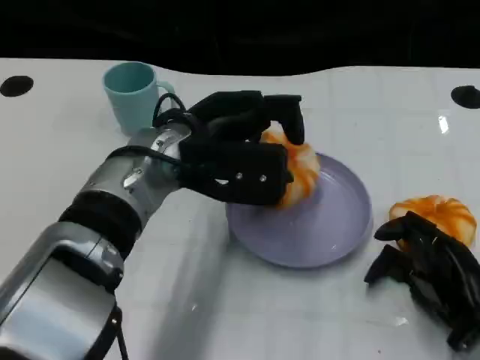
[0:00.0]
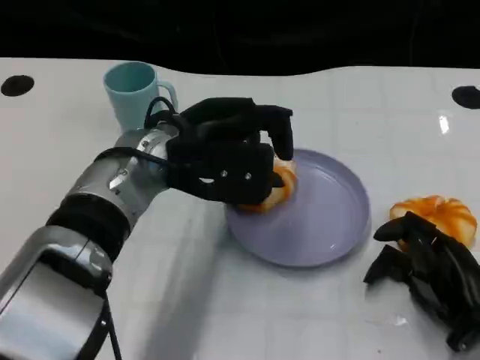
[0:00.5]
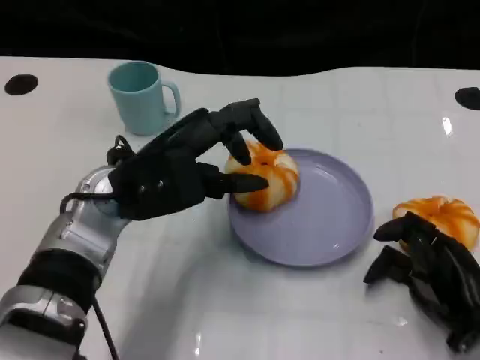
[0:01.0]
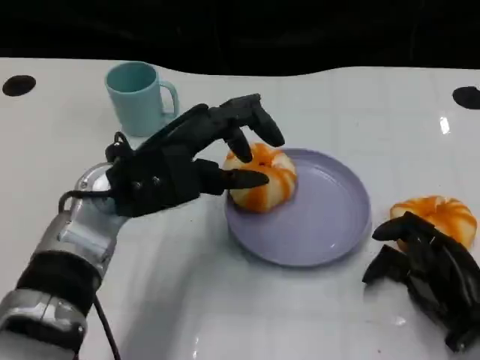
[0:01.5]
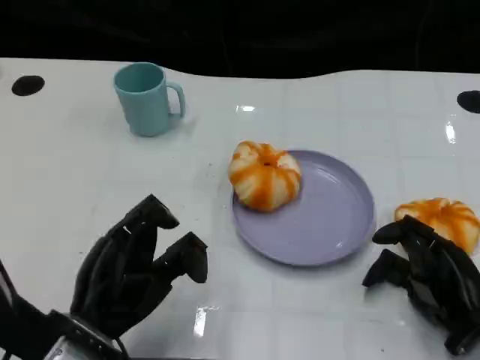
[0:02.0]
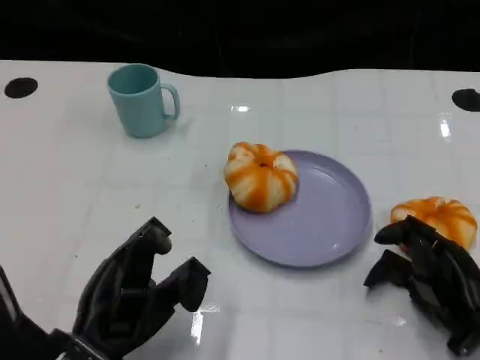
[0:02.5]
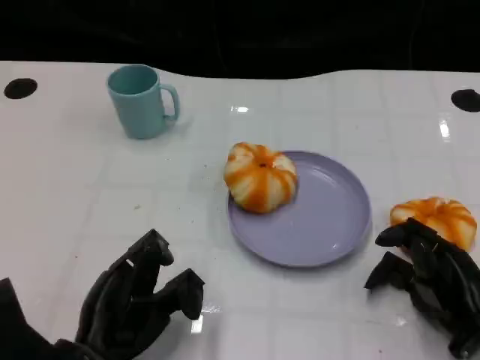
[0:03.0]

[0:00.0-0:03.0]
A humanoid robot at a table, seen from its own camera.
Task of the whole recording: Grasp the bread from the table and place it into the plate.
0.0 to 1.5 s: The left hand heads to the left, covering some 5 cm.
1.5 to 3.0 s: The left hand heads backward and downward, covering some 15 cm.

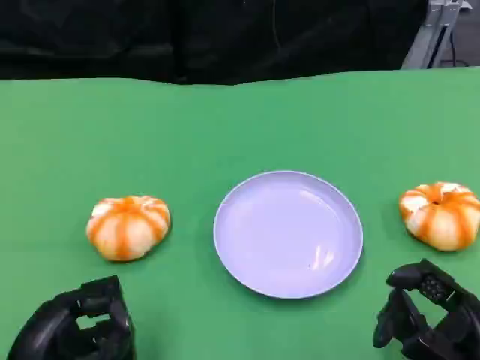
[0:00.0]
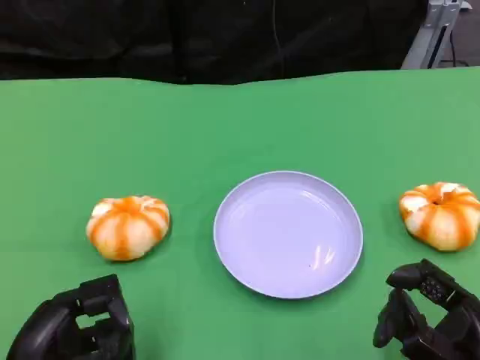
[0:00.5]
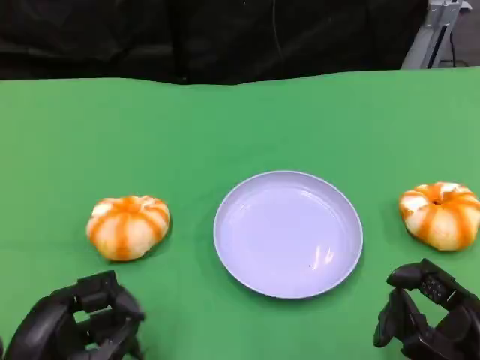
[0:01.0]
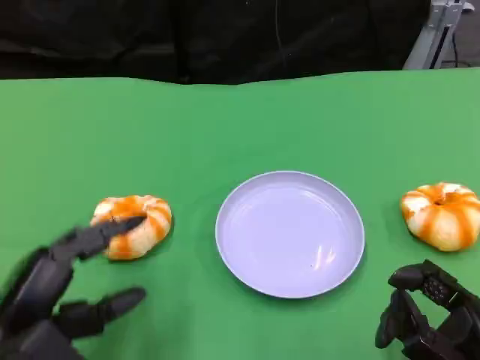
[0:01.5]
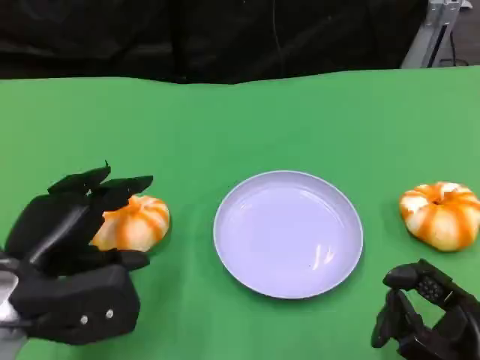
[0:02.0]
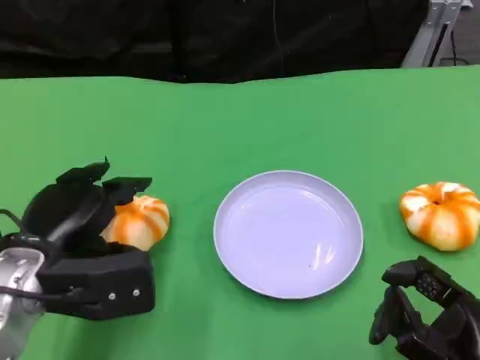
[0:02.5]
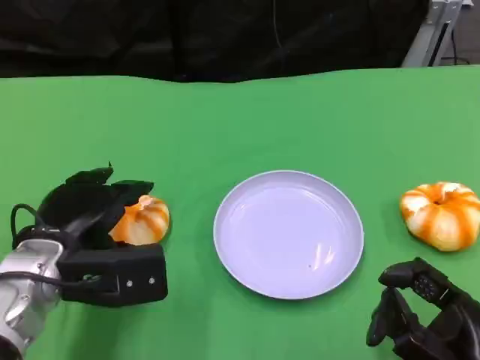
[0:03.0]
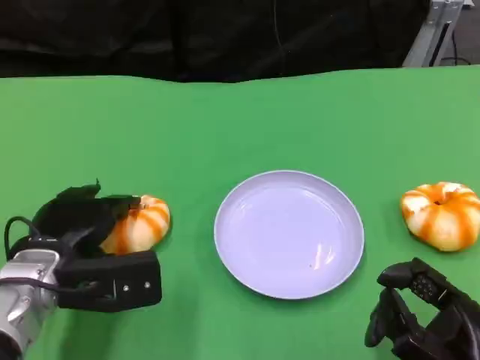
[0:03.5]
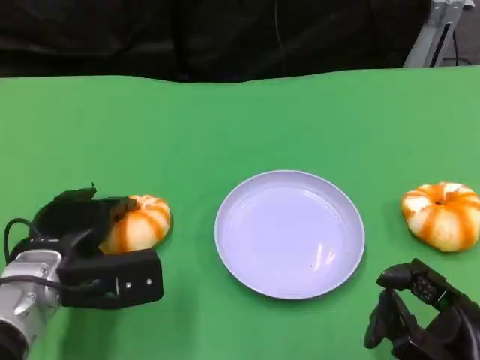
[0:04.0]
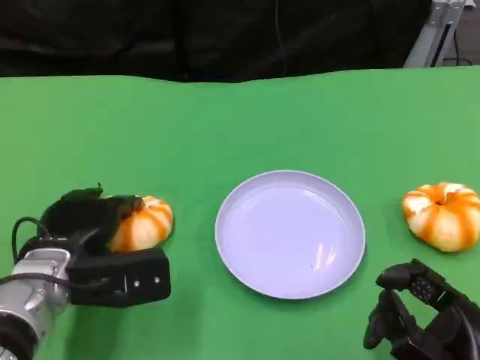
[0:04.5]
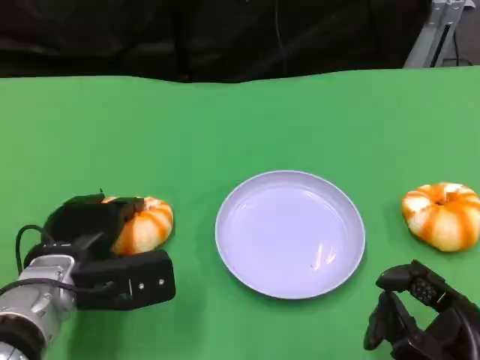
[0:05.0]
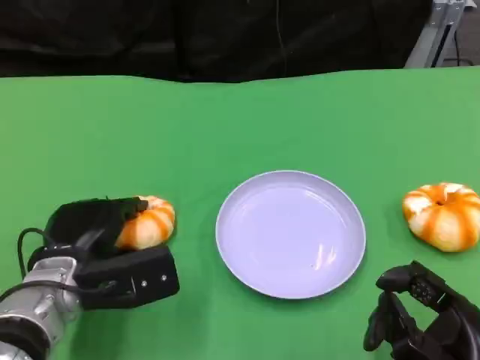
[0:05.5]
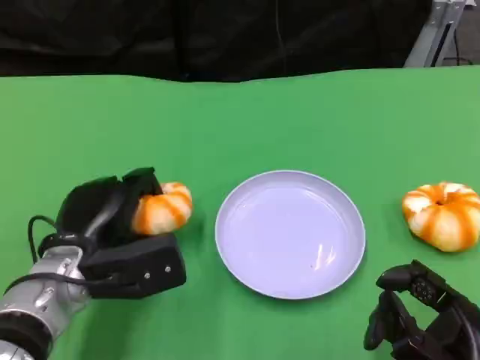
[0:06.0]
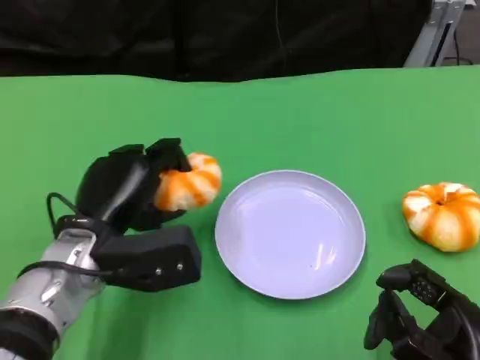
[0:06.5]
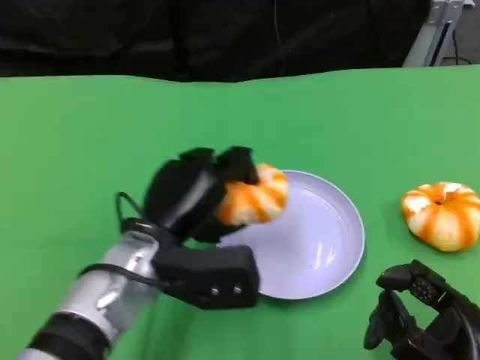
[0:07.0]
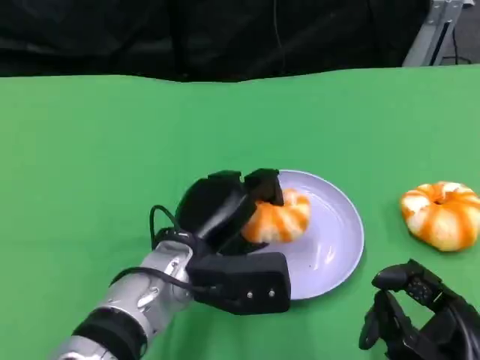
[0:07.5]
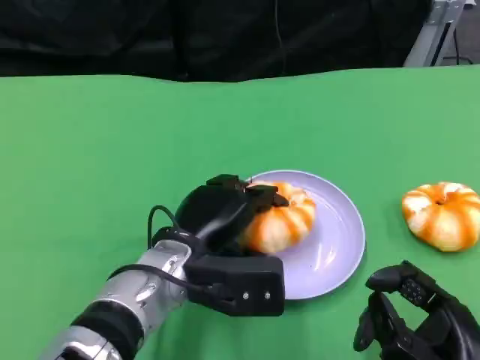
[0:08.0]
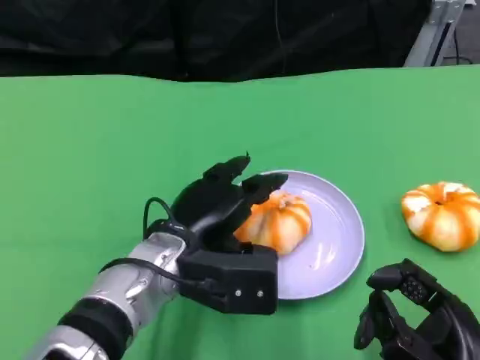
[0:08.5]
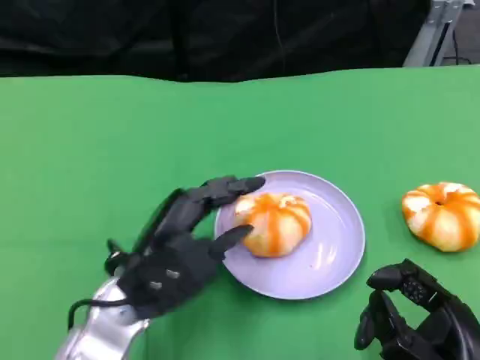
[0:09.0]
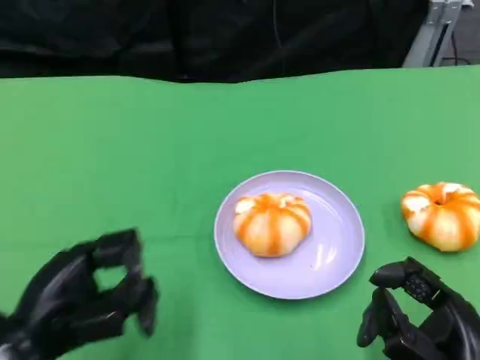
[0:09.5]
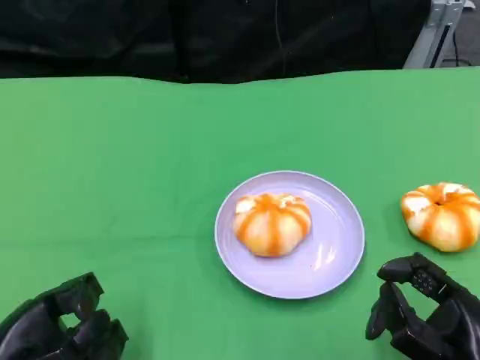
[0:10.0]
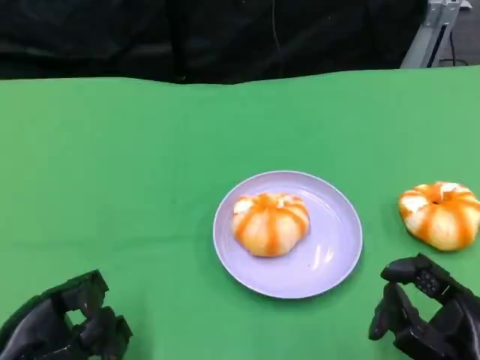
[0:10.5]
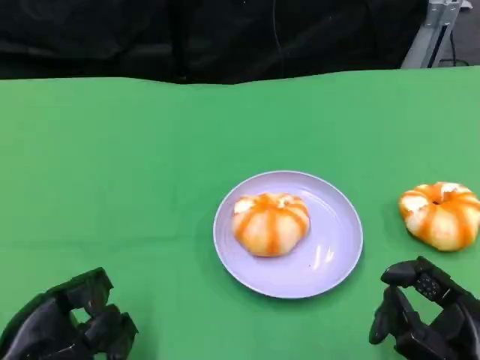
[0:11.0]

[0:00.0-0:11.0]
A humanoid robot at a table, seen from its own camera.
Task of the whole recording: Grasp the bread from the table and place it into the plate.
0.0 to 2.0 s: The left hand moves forward and upward, roughly 10 cm.
2.0 to 3.5 s: The left hand shifts by about 5 cm.
3.5 to 5.5 s: The hands make only small movements.
5.5 to 7.5 s: The left hand heads to the right, covering some 10 cm.
7.5 to 9.0 s: The left hand is displaced to the left by some 5 cm.
9.0 to 11.0 s: The left hand goes about 15 cm to the left and backward.

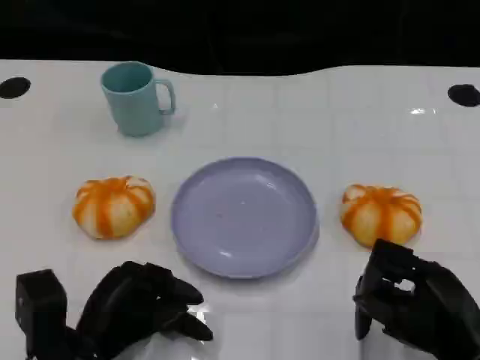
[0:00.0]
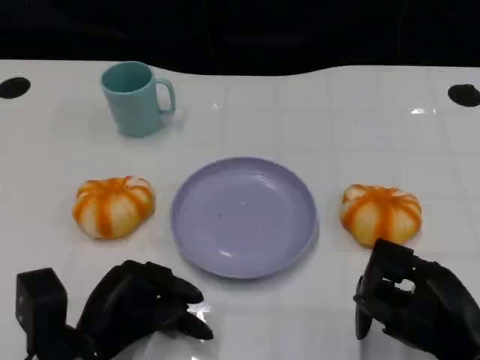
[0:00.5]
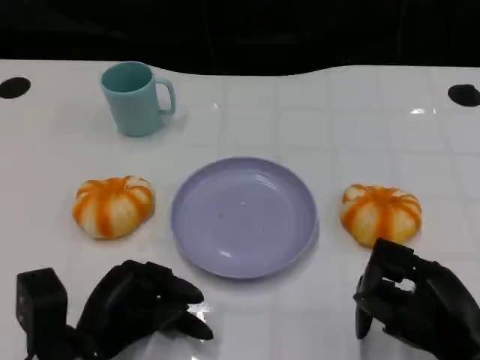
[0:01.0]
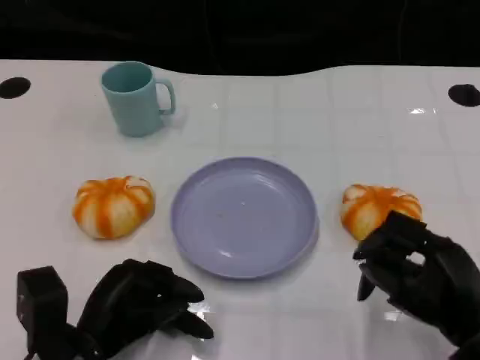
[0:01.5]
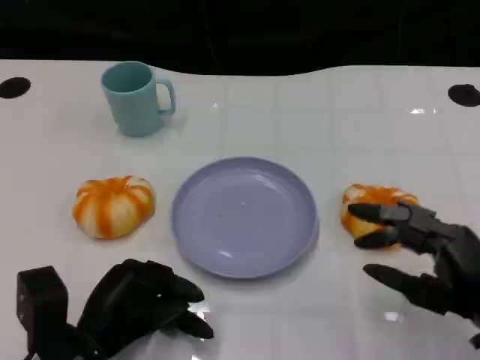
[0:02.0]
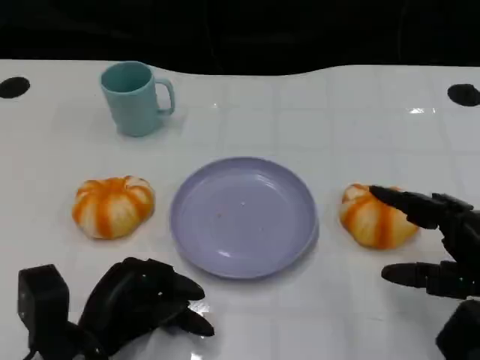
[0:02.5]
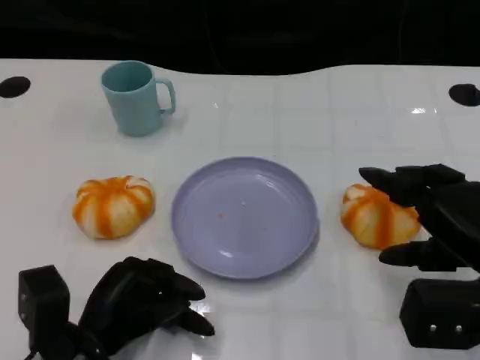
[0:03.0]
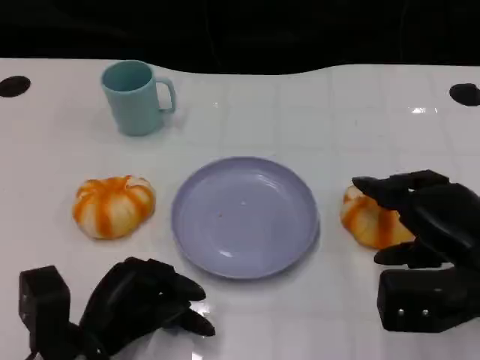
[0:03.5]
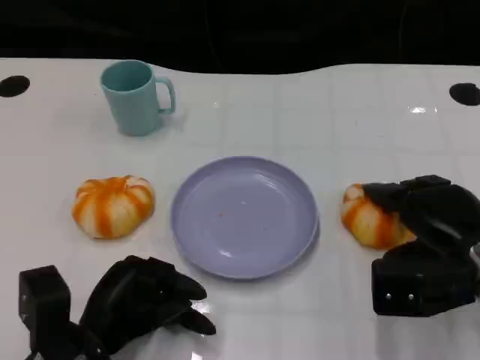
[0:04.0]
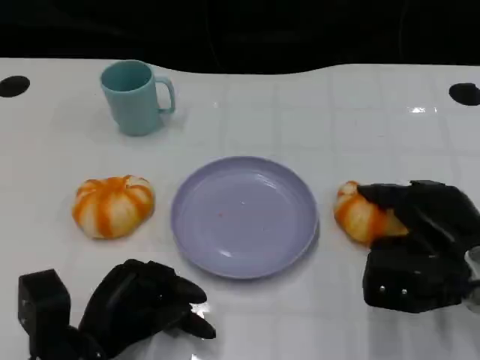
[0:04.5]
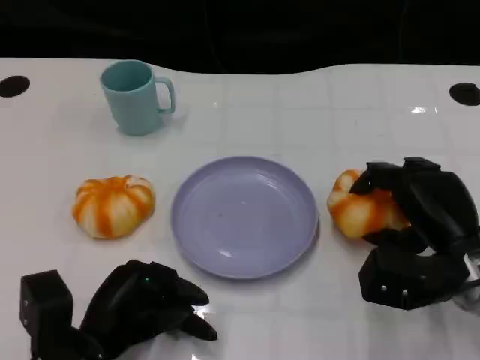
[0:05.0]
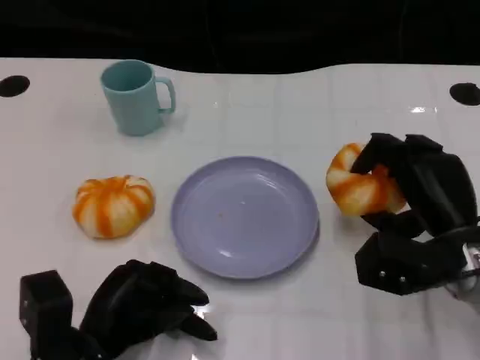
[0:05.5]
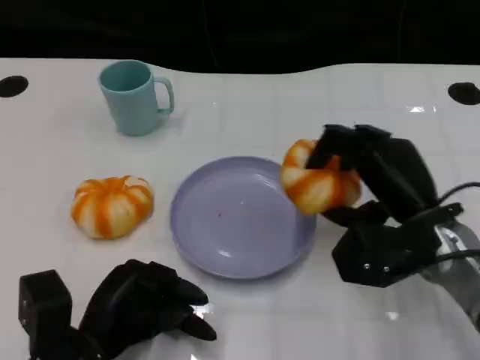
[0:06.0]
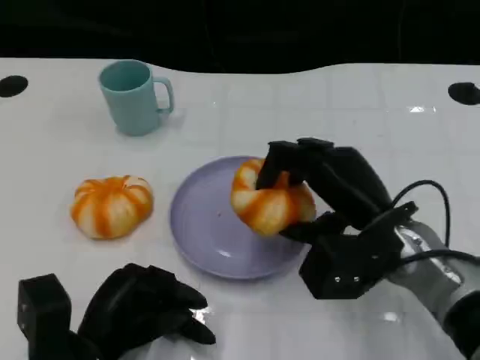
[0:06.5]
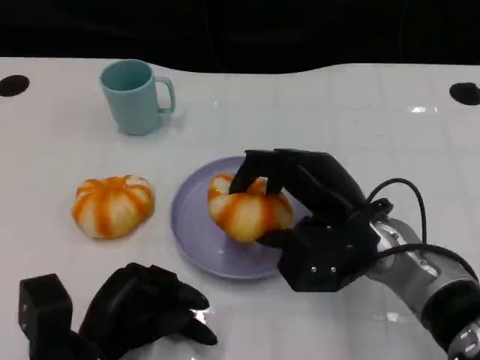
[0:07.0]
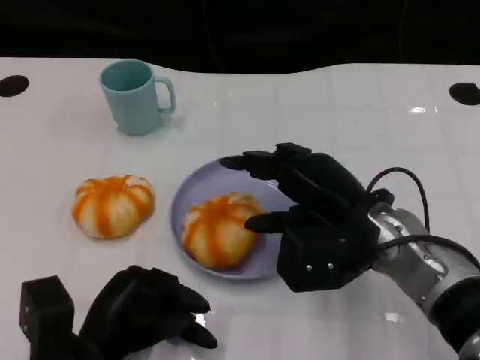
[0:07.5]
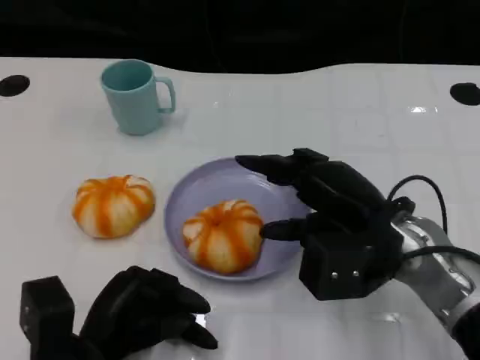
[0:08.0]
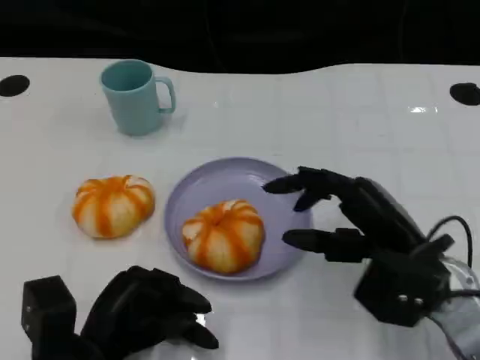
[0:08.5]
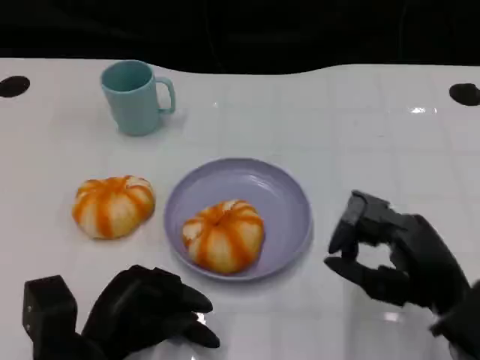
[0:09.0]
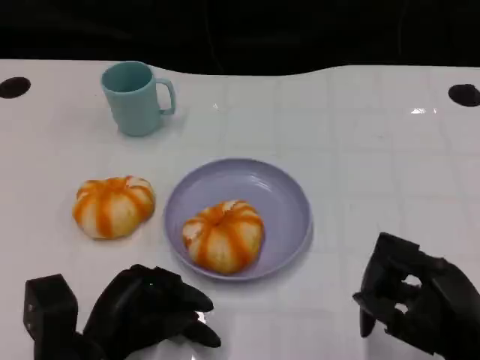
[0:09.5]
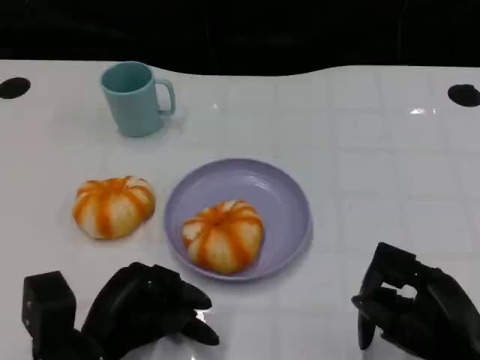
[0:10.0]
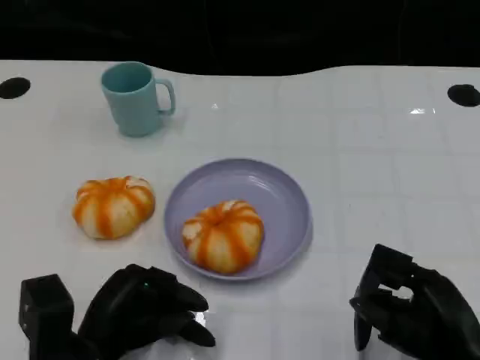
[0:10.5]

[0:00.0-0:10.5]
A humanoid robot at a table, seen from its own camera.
Task of the whole recording: Grasp the bread from the table and place it into the plate.
2.0 to 4.0 s: The right hand heads forward, covering about 10 cm.
4.0 to 6.5 s: The right hand goes approximately 10 cm to the left.
6.5 to 8.5 s: The right hand changes place by approximately 5 cm.
8.5 to 10.5 s: The right hand travels backward by approximately 10 cm.

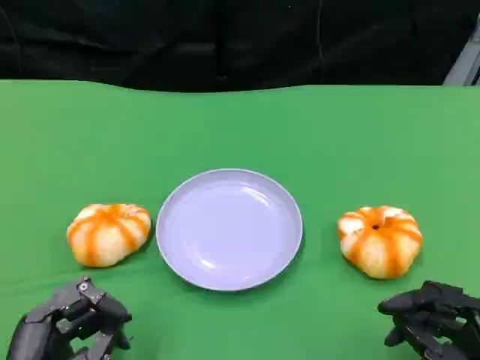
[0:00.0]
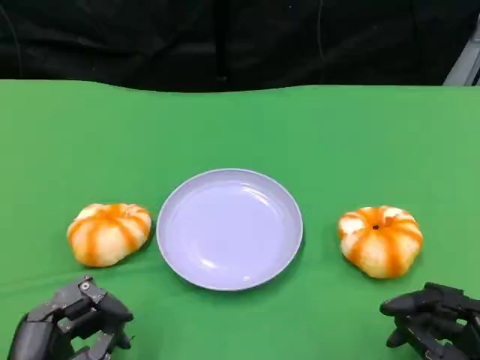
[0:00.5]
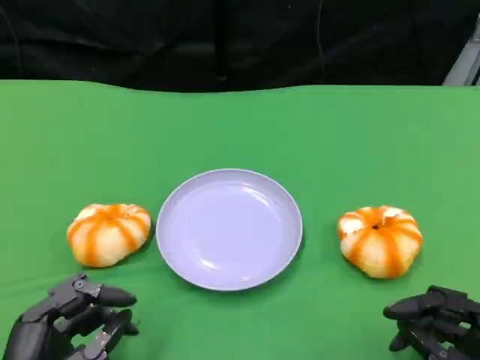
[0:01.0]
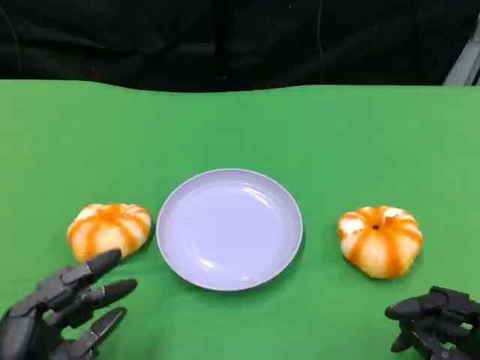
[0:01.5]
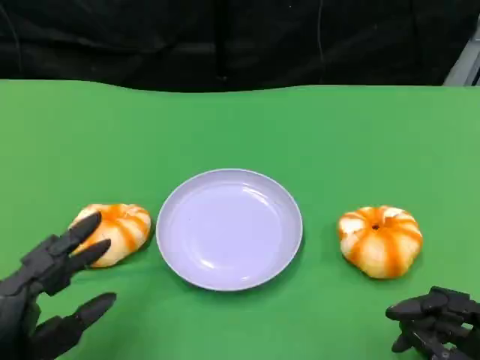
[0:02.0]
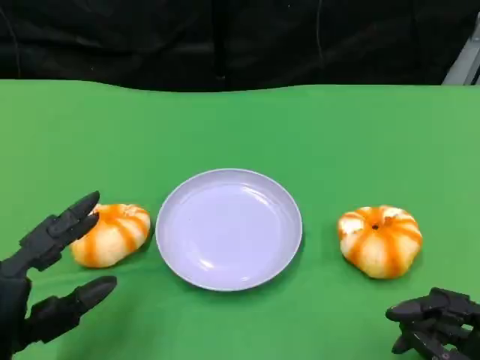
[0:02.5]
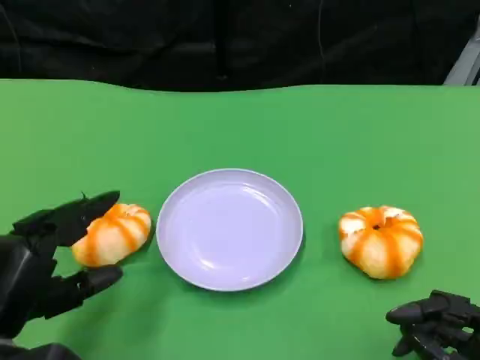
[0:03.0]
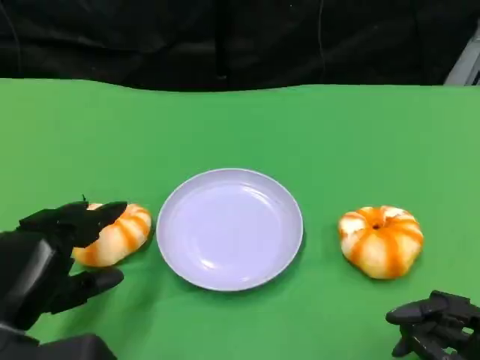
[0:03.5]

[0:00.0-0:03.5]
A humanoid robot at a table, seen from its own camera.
Task of the whole recording: Grasp the bread from the table and place it into the plate.
0.0 to 2.0 s: The hands move only a little.
